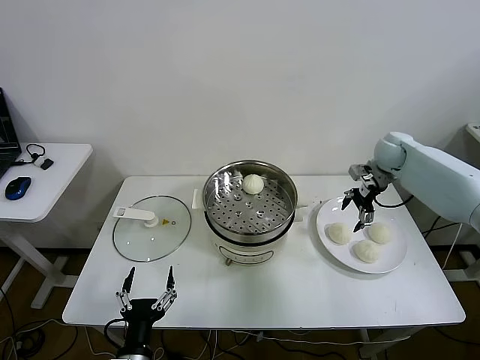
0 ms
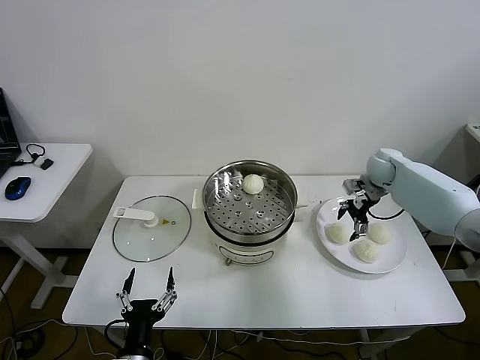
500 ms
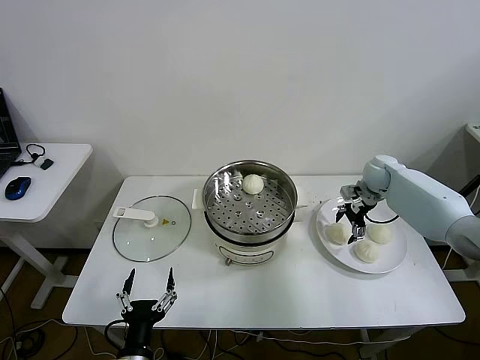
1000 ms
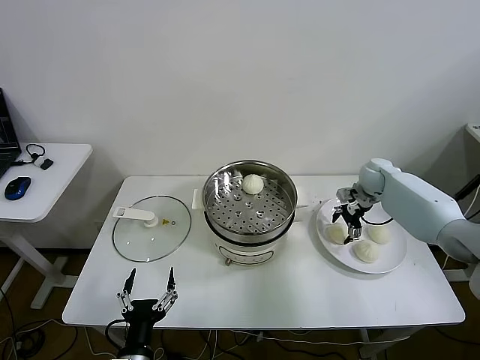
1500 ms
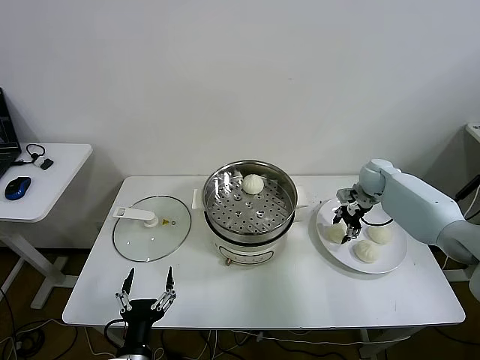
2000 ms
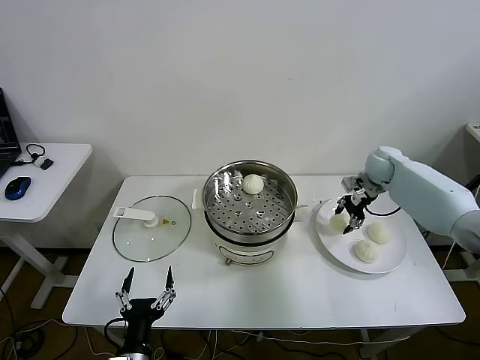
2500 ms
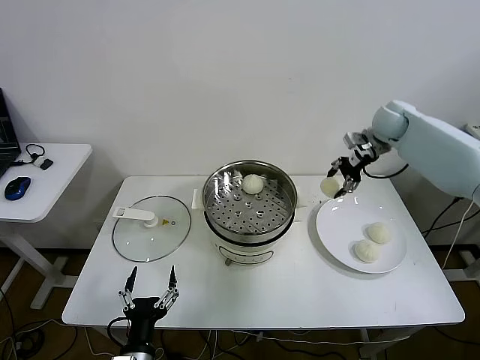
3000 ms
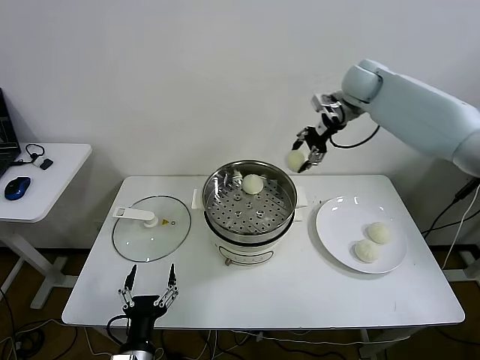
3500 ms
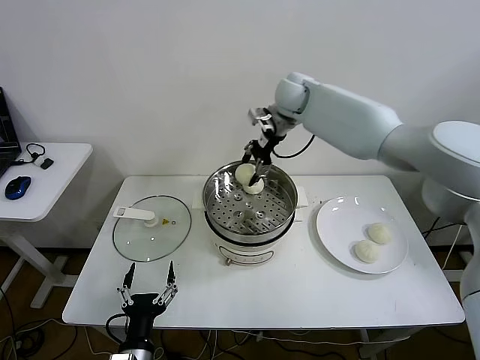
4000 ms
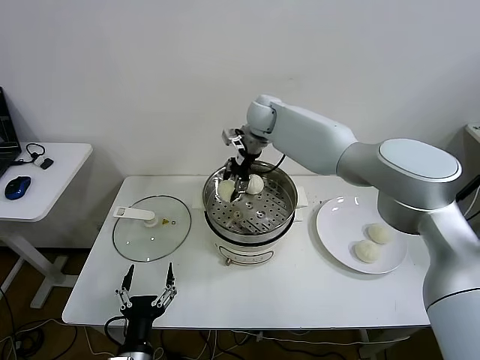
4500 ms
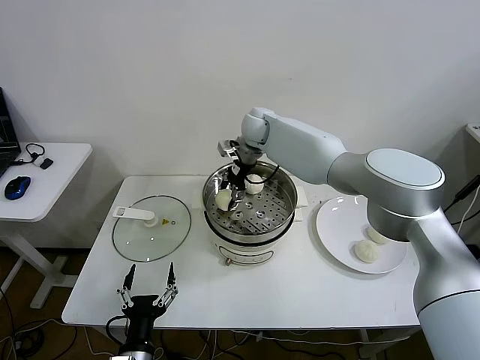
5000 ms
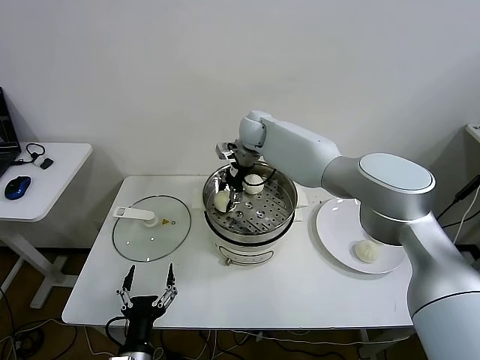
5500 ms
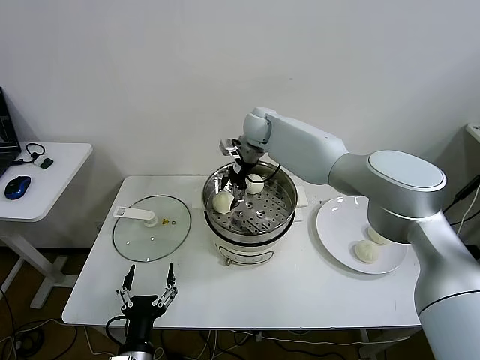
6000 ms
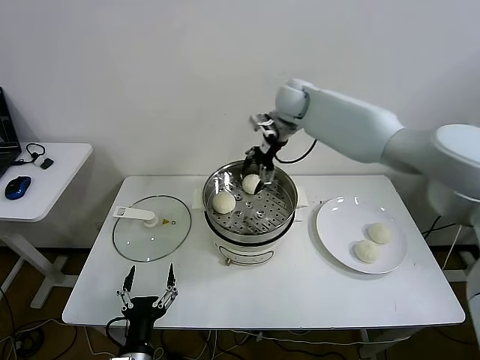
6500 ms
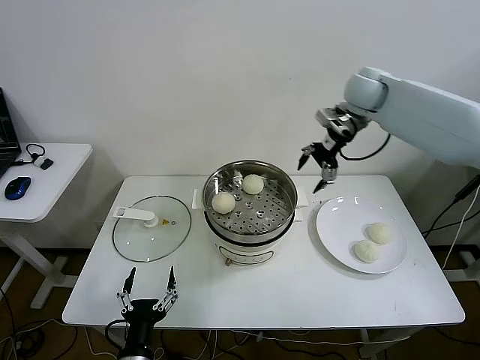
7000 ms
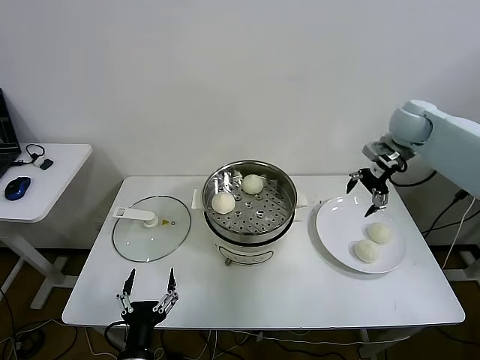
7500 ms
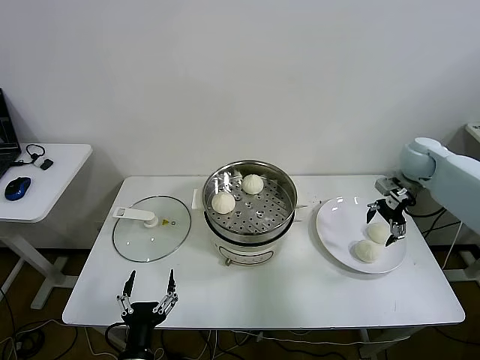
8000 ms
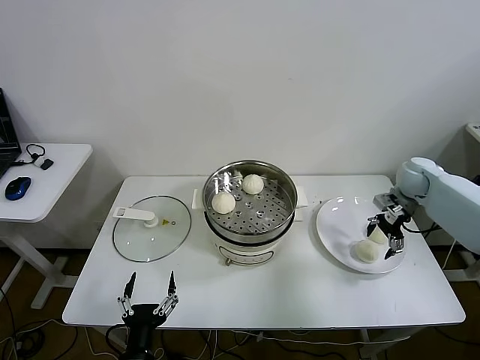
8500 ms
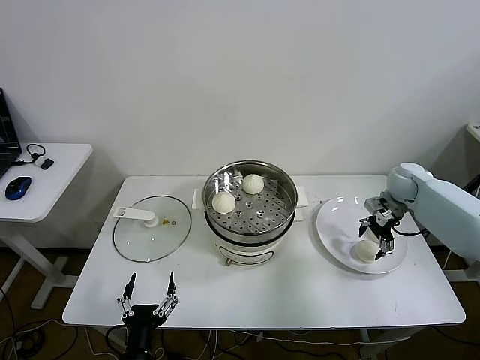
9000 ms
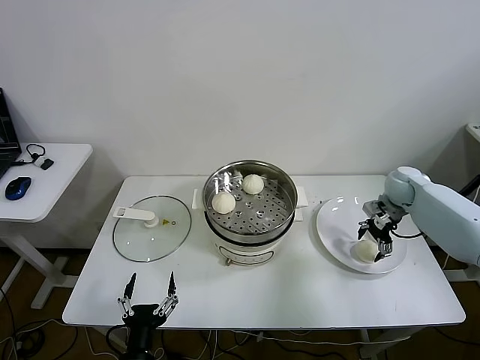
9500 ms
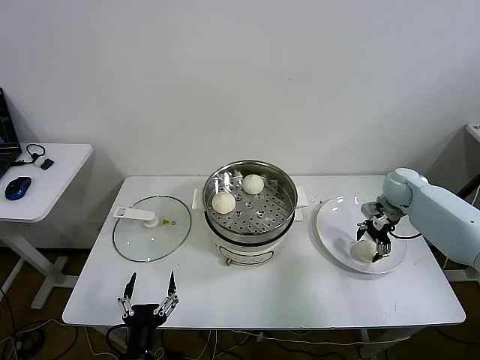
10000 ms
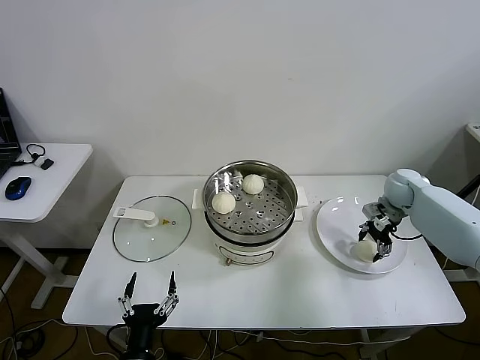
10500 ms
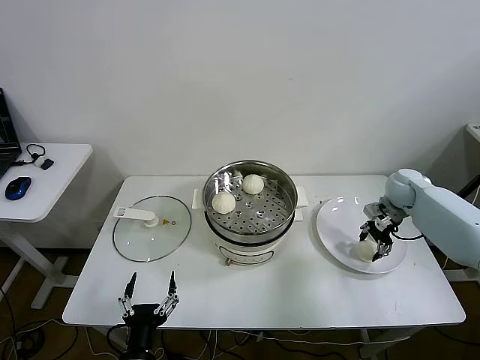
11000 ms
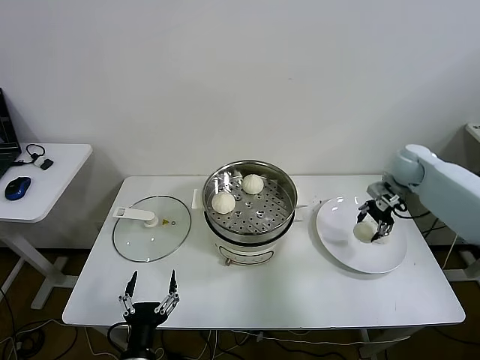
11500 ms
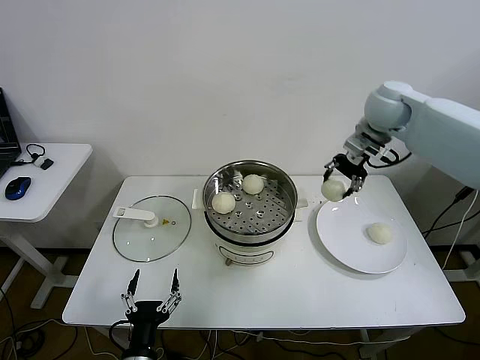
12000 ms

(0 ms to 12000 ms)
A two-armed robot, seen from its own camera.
Step, 0 ms - 2000 ms: Grasp the baozi in the plate with right gripper.
Step, 2500 ms - 5500 ms: Place the baozi on the steamer with right gripper.
Step, 6000 ms - 10500 ms: Grasp the baozi in the plate with right gripper.
0 ms - 2000 ms: The right gripper travels downward by some 10 cm, and closes.
2000 ms - 4000 ms: The right gripper goes approximately 35 cm to the left and upward.
4000 ms - 6000 ms: The right gripper goes roughly 10 cm downward and to the left, and opens up.
6000 ms - 8000 ms: The right gripper goes approximately 40 cm to the right.
8000 ms - 10000 ms: The right gripper heads downward, covering roughly 10 cm.
10000 ms - 12000 ms: The right gripper is displaced upward and to the left by approximately 25 cm, and closes its fingers.

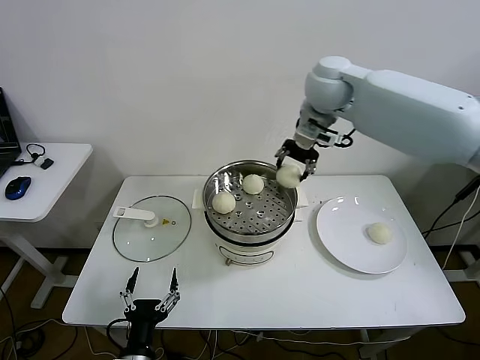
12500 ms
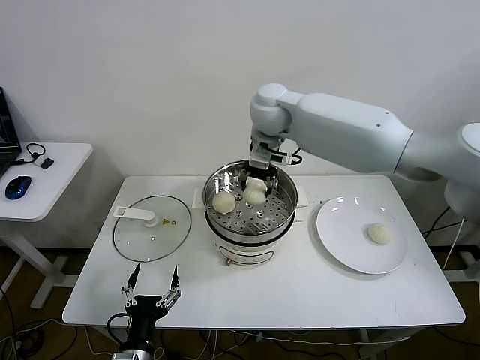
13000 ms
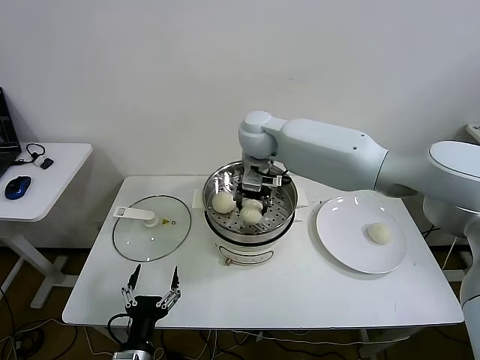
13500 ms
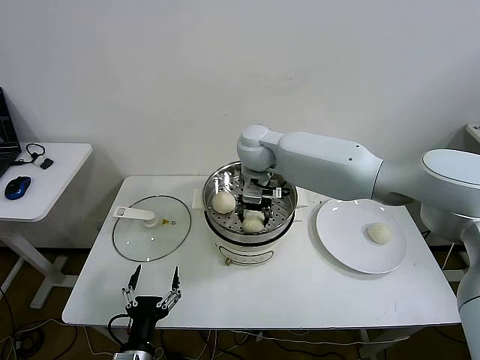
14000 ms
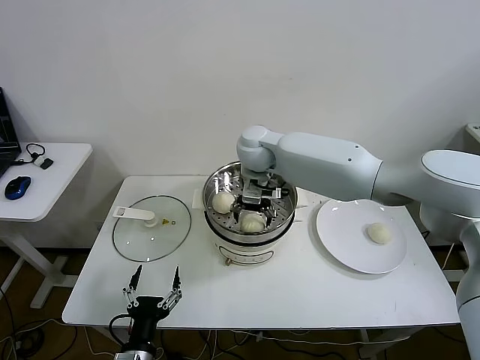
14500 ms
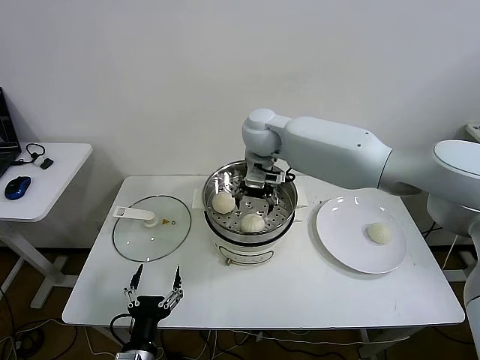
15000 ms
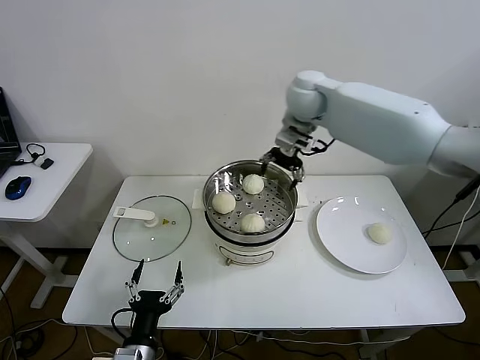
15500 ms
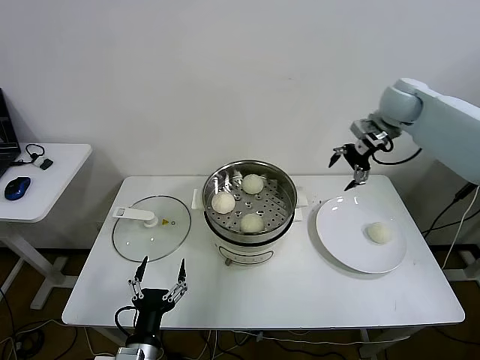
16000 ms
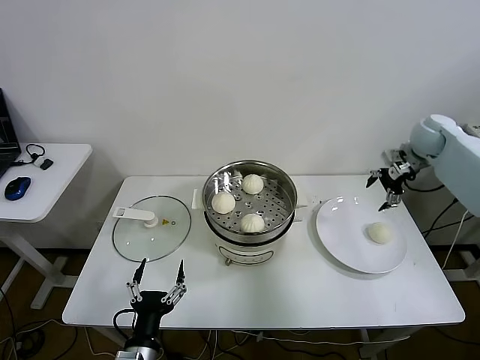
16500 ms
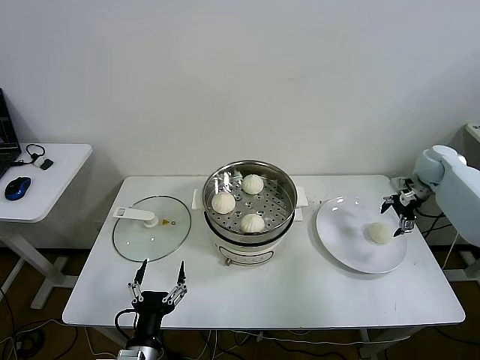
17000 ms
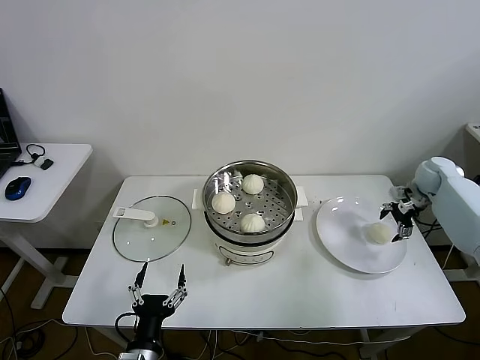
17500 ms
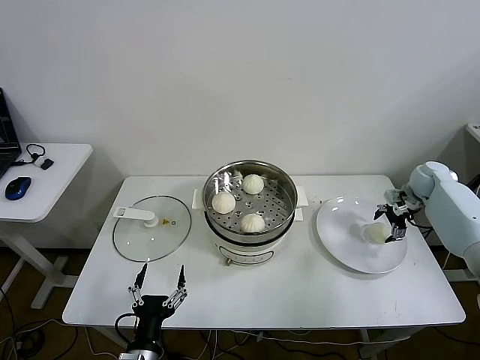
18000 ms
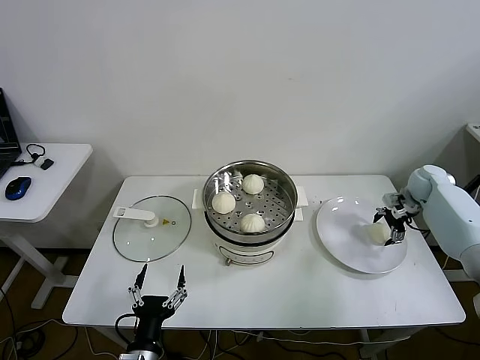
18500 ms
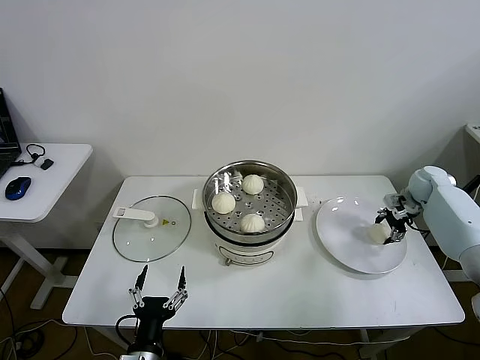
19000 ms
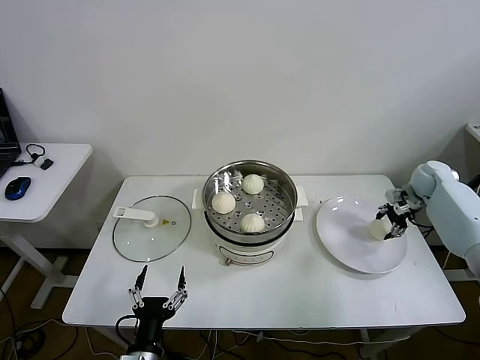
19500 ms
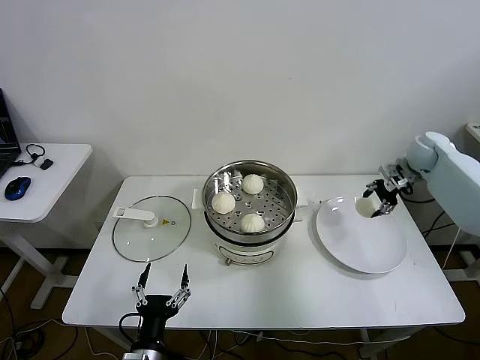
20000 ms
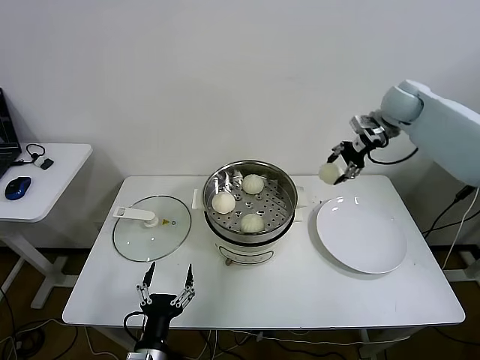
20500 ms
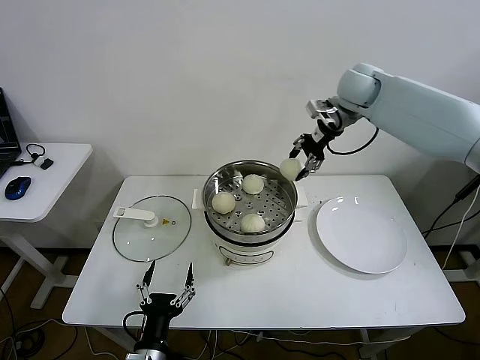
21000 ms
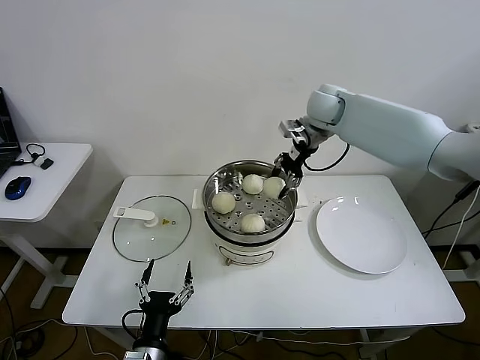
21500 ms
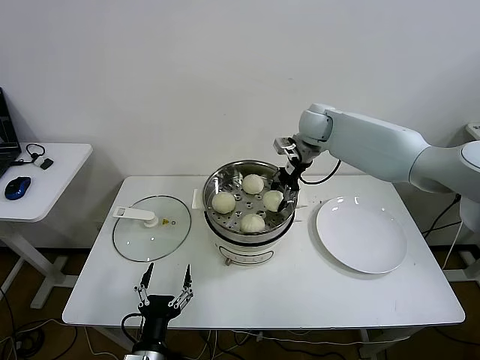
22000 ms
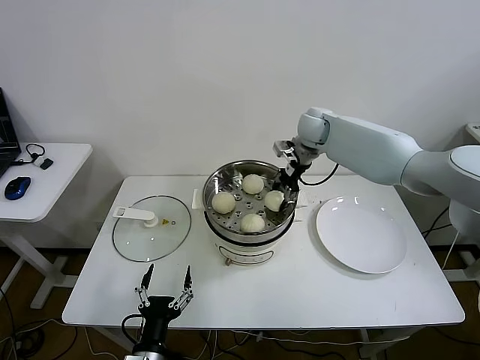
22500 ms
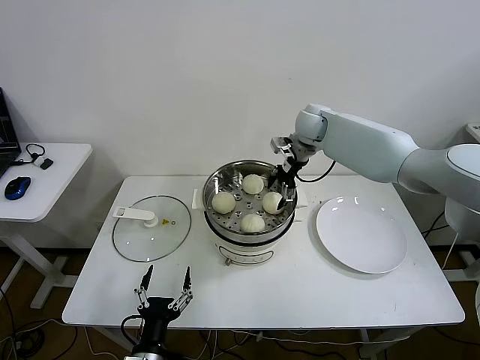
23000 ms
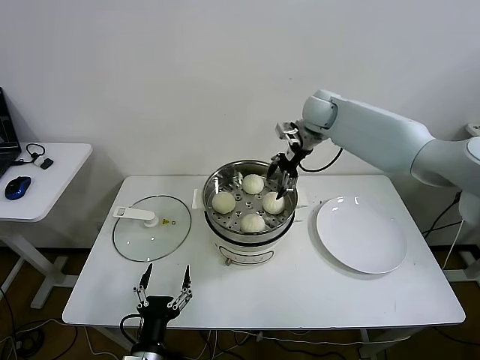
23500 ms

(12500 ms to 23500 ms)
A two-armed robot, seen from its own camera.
Step, 12500 ms - 14500 ms: Place the baozi on the steamer with right gripper.
Step, 15000 ms - 19000 ms: Grasp the baozi in the plate with right gripper.
Step, 19500 ms - 23000 ms: Place the baozi on the steamer with right gripper.
12500 ms - 14500 ms: The right gripper travels downward and to the left by some 20 cm, and opens up.
14500 ms - 16000 ms: The right gripper is displaced to the right by approximately 30 cm.
16000 ms - 18000 ms: The right gripper is displaced downward and to the right by some 25 cm.
18000 ms - 20000 ms: The right gripper shifts some 10 cm upward, and closes.
20000 ms - 21500 ms: The right gripper moves to the left and upward, about 30 cm.
21500 ms - 23500 ms: The right gripper opens up.

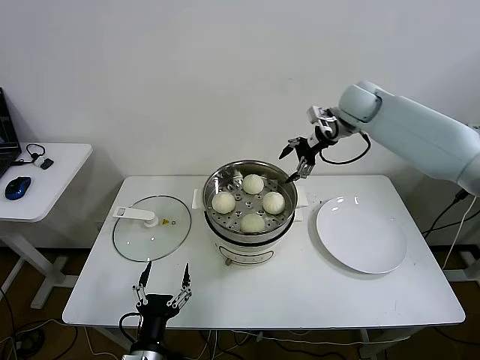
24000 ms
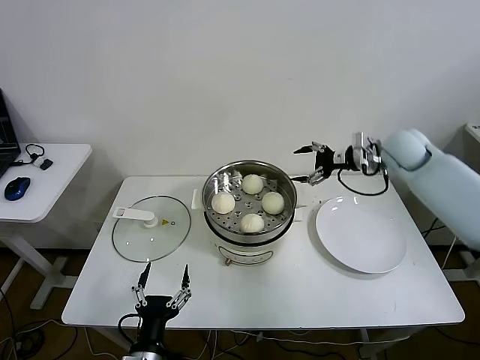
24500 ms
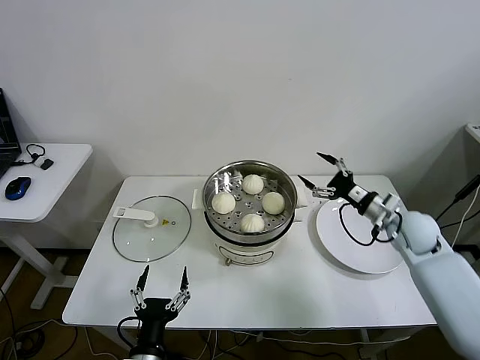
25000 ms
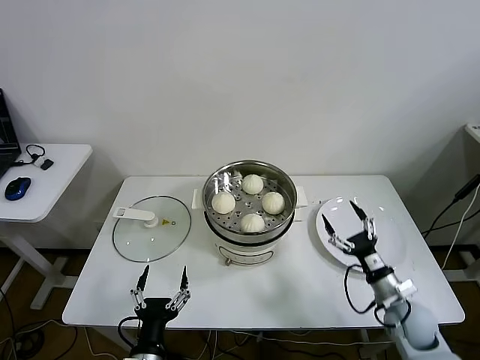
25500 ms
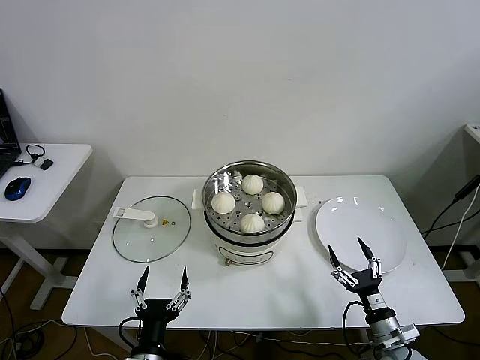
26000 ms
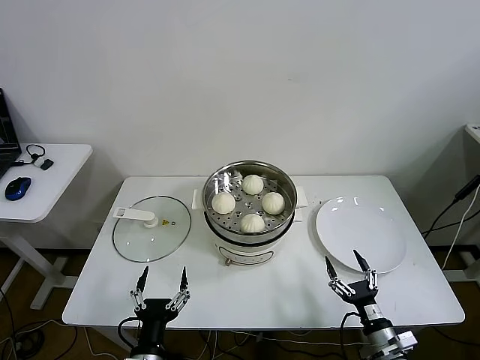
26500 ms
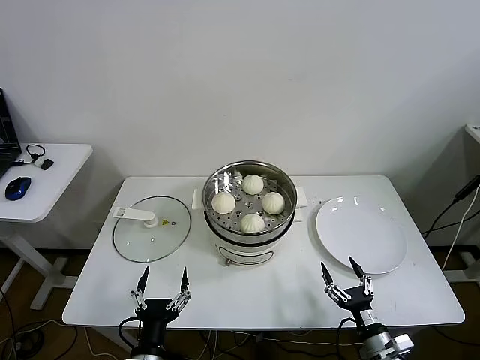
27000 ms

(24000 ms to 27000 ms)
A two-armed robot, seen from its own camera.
24000 ms - 25500 ms: The right gripper is displaced backward and downward by roughly 50 cm.
25500 ms - 27000 ms: The right gripper shifts approximately 15 cm backward and downward.
